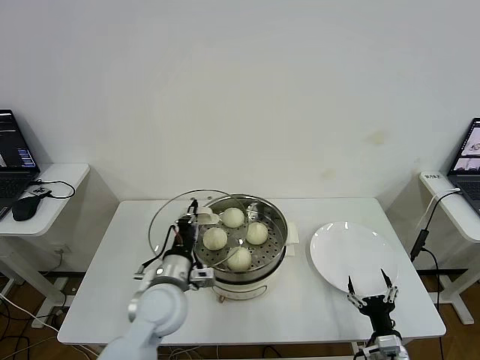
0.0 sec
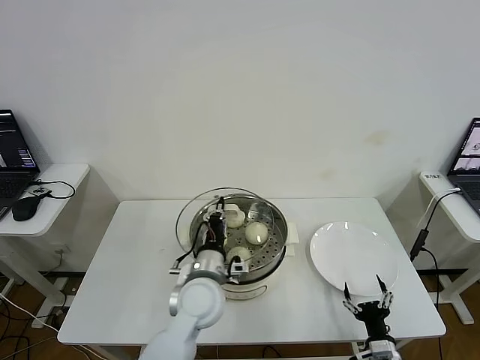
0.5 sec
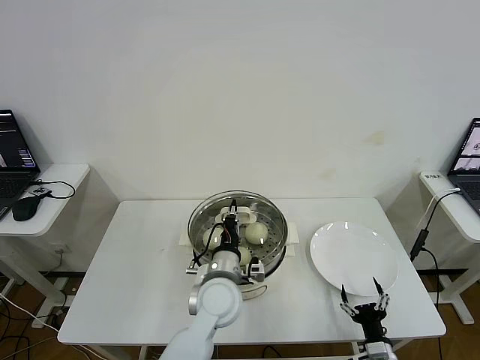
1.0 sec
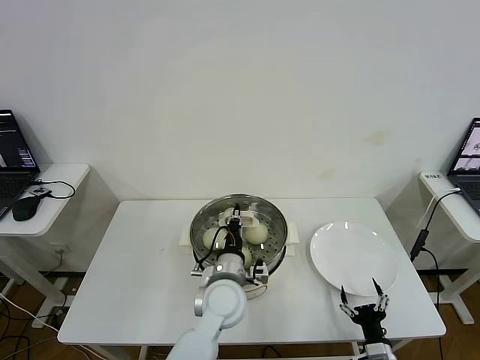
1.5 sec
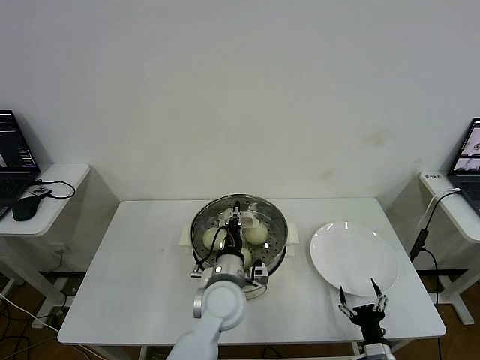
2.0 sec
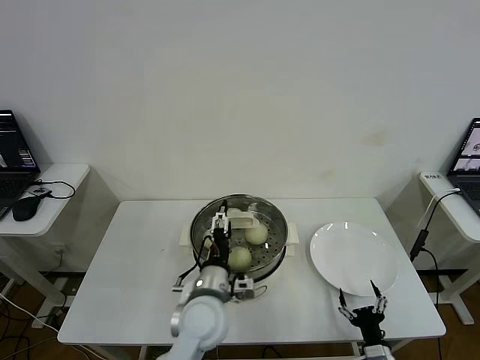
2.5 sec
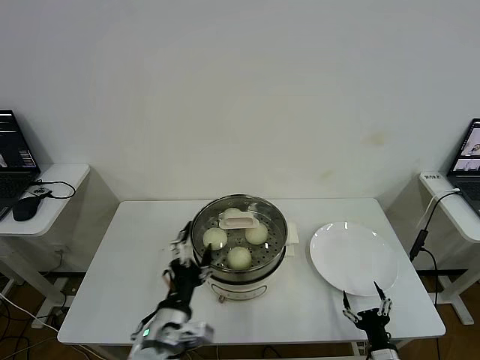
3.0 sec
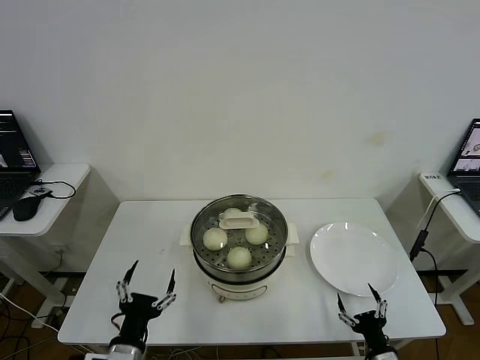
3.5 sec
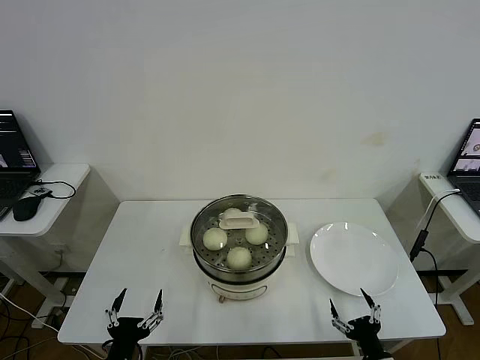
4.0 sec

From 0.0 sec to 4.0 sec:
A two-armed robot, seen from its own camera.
Step, from 0.0 sec to 2.0 sec: Place the pot lid on the steamer with left gripper.
From 0.0 sec to 2.0 sec: The left gripper is displaced to the right by roughly 15 cm.
From 2.0 sec to 4.0 sec: The left gripper goes roughly 30 cm to the left and backward, and opens its fingers.

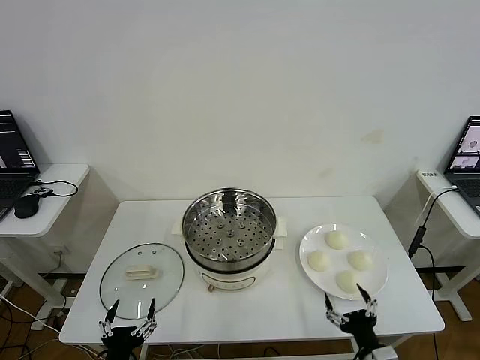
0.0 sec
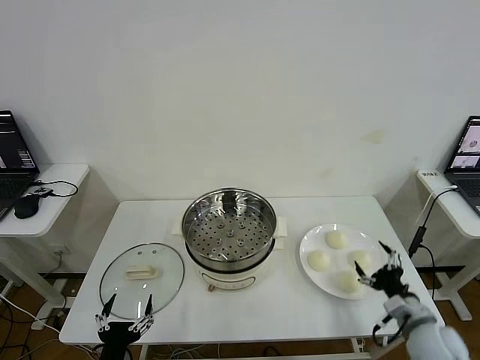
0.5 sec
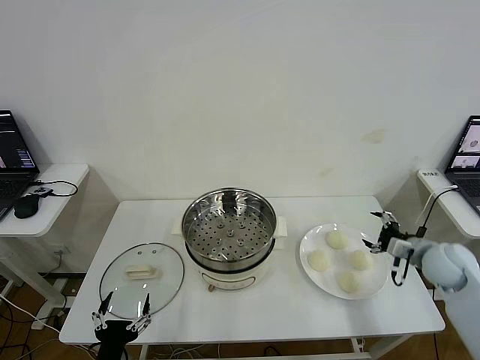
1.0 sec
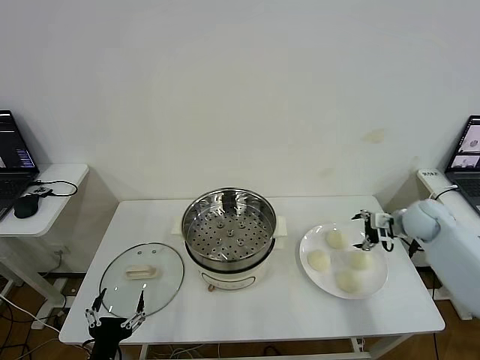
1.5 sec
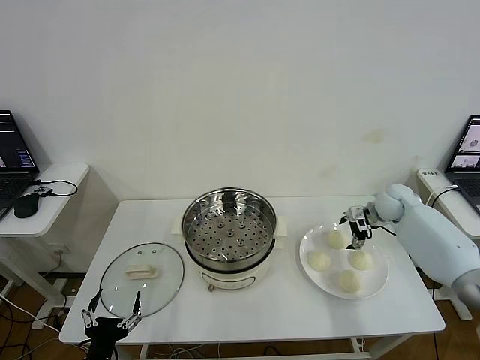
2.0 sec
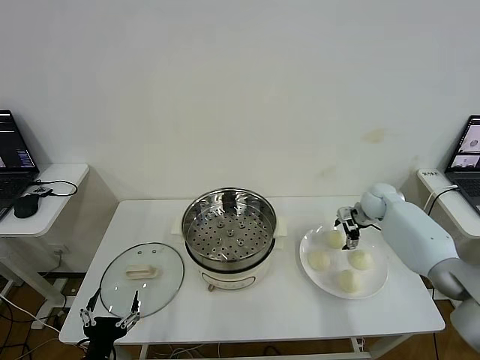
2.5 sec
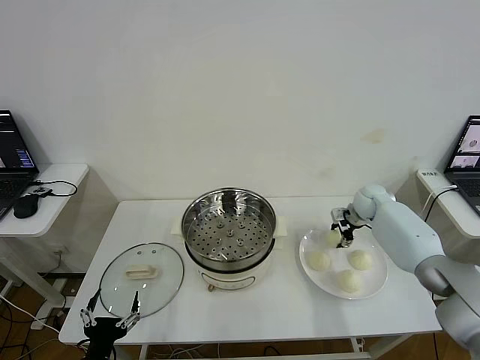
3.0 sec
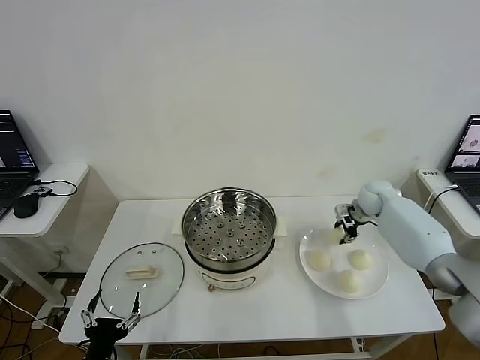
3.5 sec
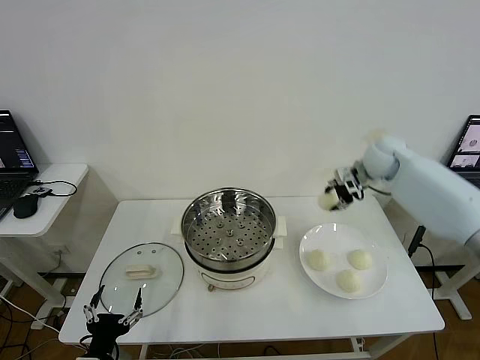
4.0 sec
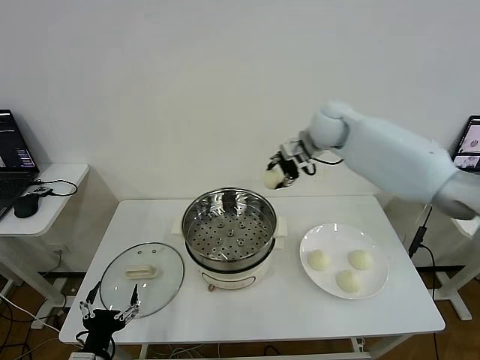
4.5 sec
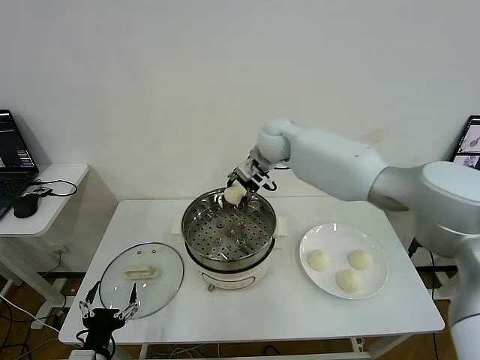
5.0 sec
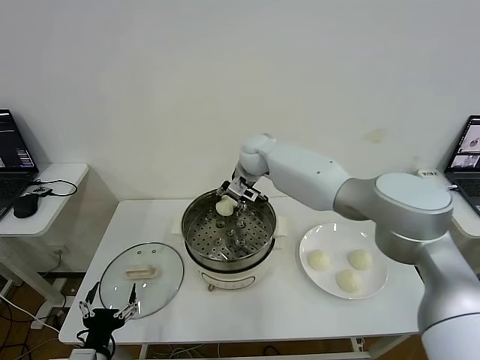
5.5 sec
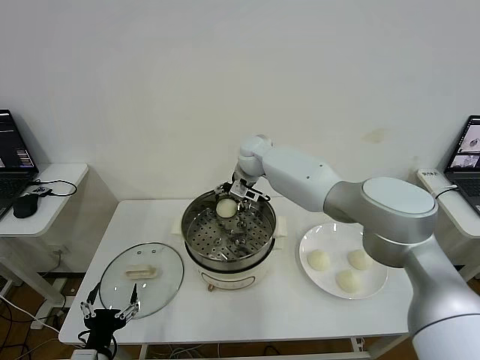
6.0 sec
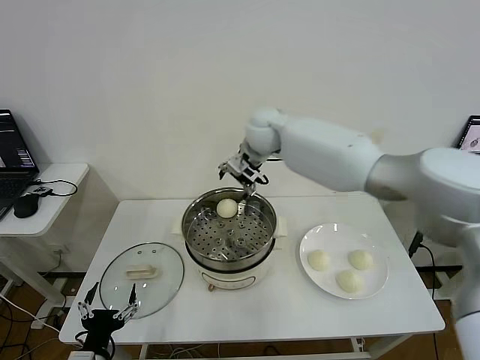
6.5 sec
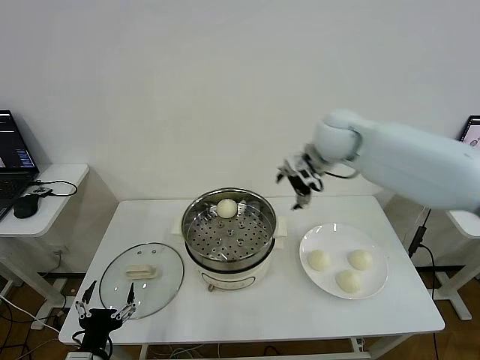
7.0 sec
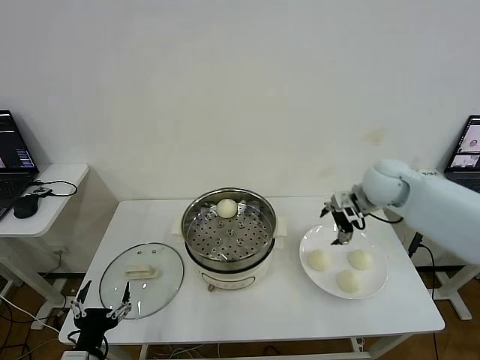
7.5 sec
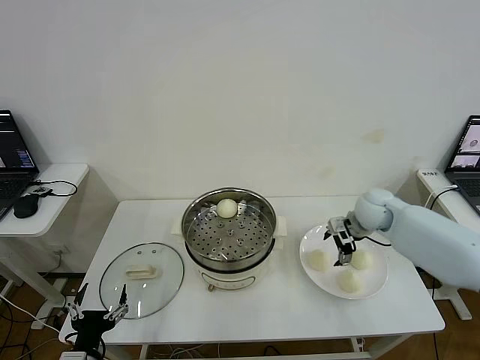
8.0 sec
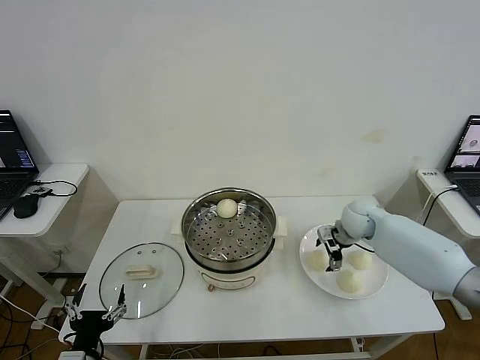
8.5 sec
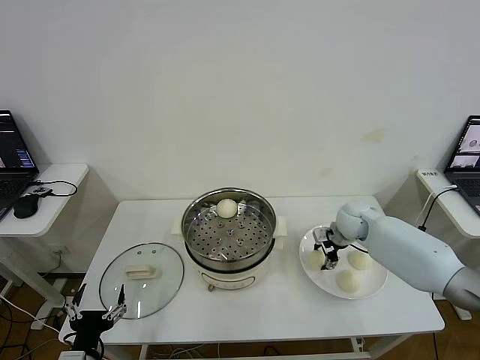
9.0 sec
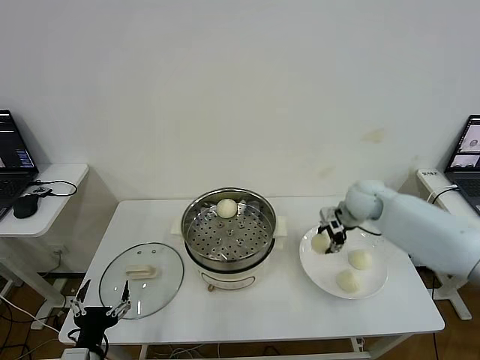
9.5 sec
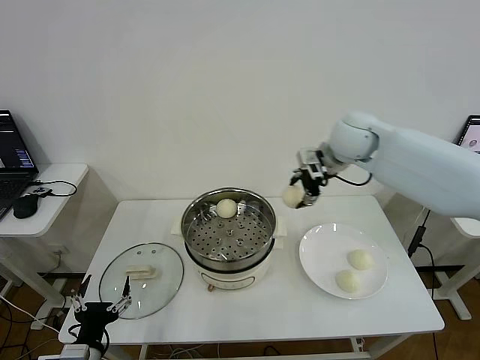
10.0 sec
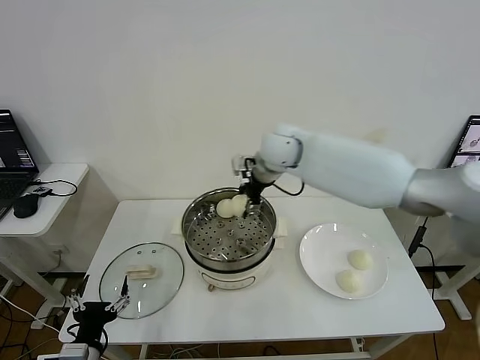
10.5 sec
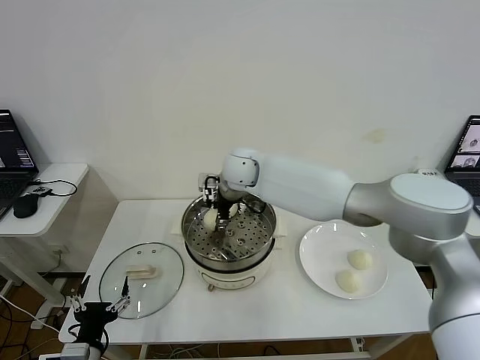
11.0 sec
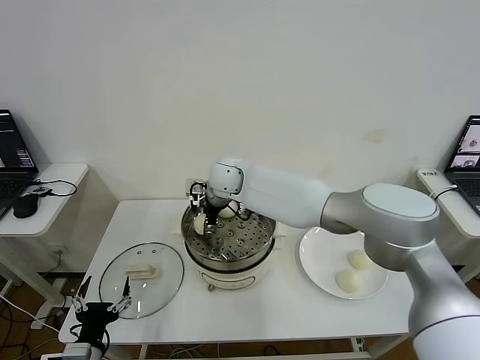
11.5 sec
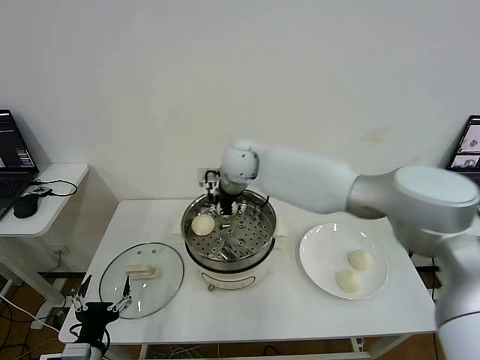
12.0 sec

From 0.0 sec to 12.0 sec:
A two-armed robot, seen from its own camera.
Step, from 0.0 sec to 3.0 sec: Grasp the baozi in the plate with right gripper.
Step, from 3.5 sec to 6.0 sec: Place the baozi on the steamer with right gripper.
Step, from 6.5 sec to 8.5 sec: Grasp the baozi in the plate with right gripper.
Step, from 9.5 sec to 11.5 sec: Place the baozi on the steamer with right gripper.
From 2.0 sec to 4.0 sec: The right gripper shifts about 25 cm upward and to the left, and closes.
From 4.0 sec to 6.0 sec: The right gripper moves to the left, some 25 cm, and opens its fingers.
From 6.0 sec to 8.0 sec: The right gripper goes some 30 cm to the right, downward and backward.
From 8.0 sec to 10.0 sec: The right gripper heads upward and to the left, covering approximately 25 cm, and closes.
From 10.0 sec to 12.0 sec: The right gripper shifts roughly 15 cm to the left, and opens.

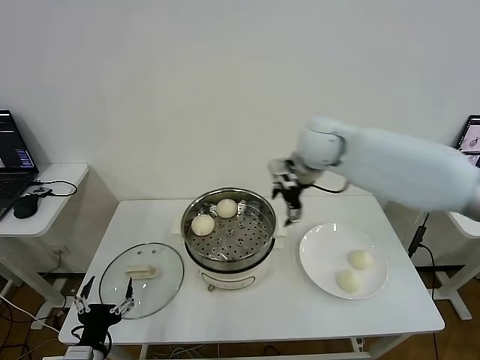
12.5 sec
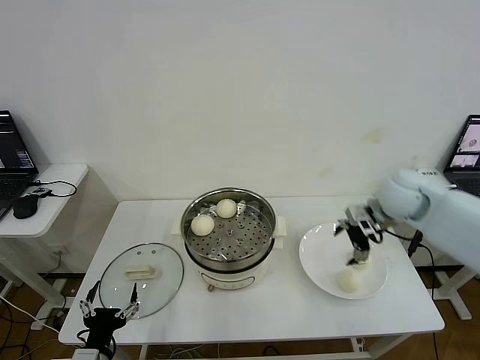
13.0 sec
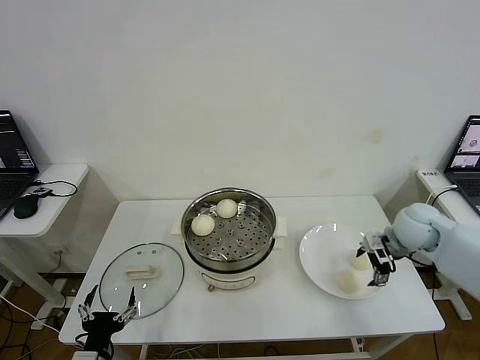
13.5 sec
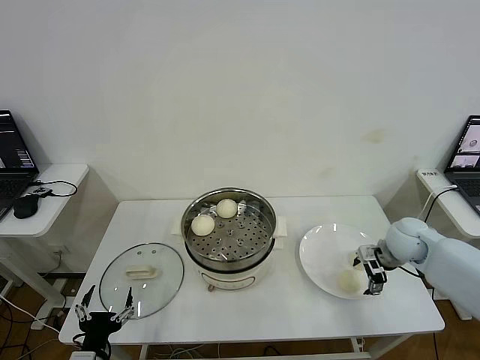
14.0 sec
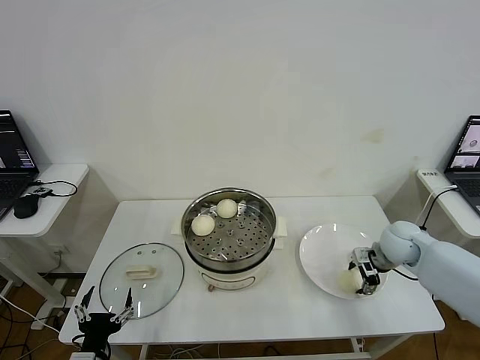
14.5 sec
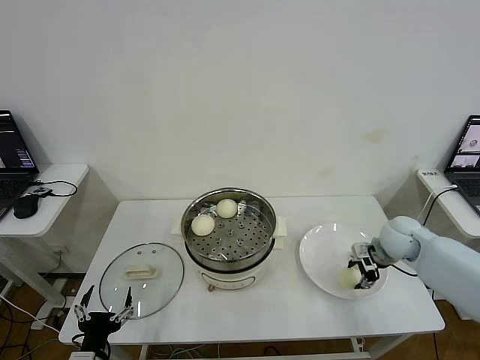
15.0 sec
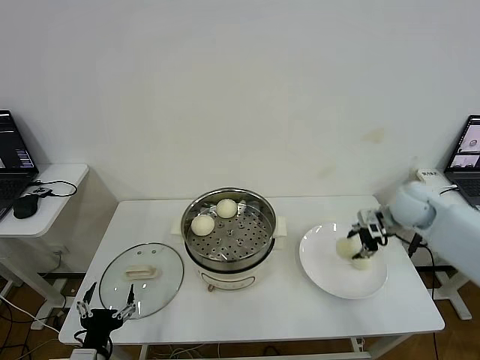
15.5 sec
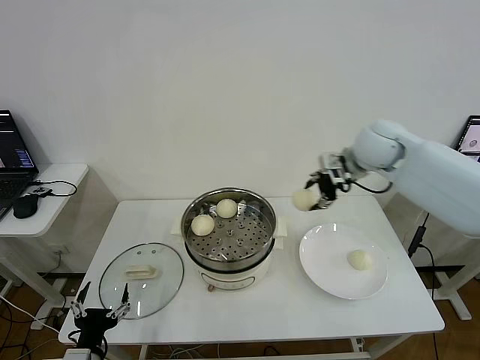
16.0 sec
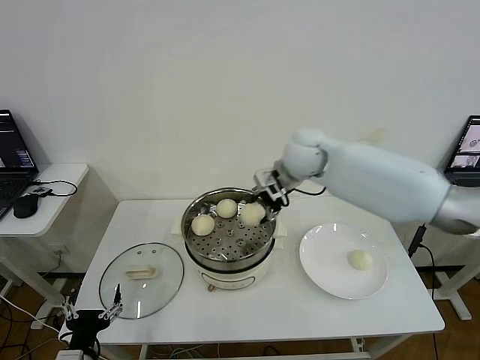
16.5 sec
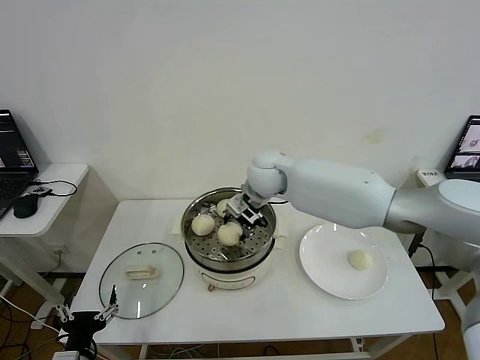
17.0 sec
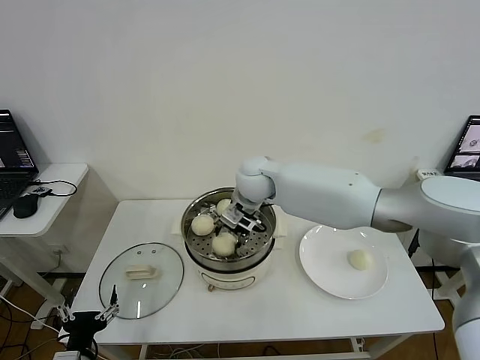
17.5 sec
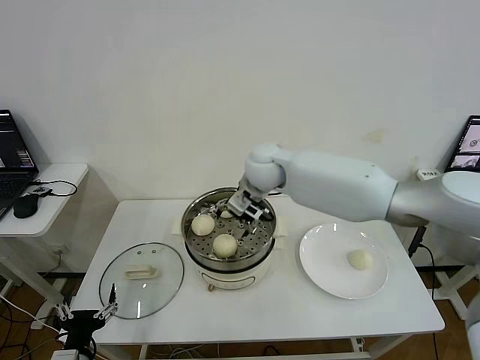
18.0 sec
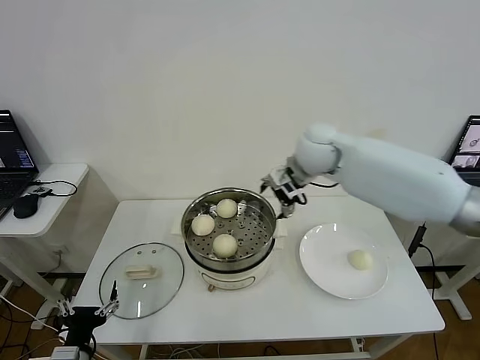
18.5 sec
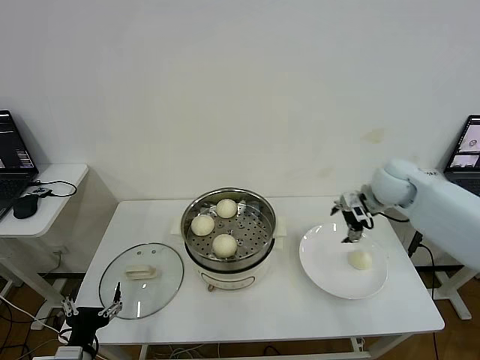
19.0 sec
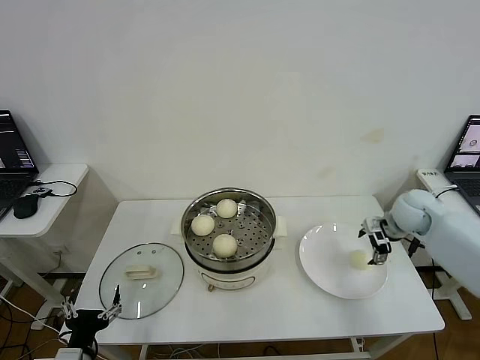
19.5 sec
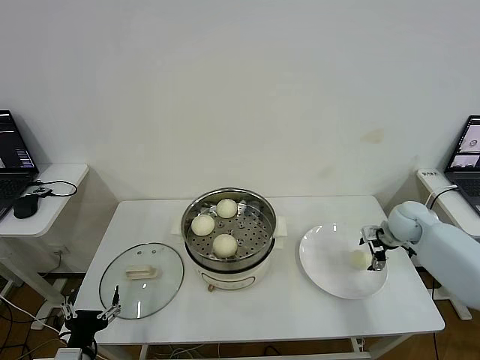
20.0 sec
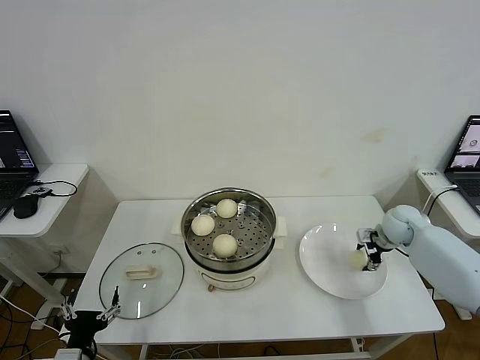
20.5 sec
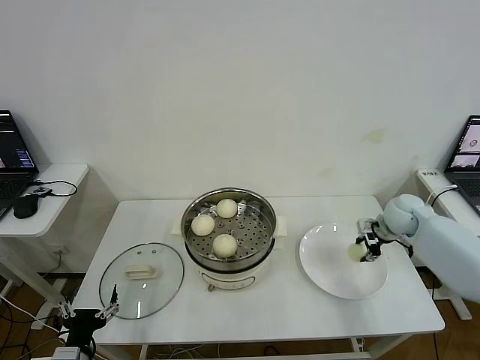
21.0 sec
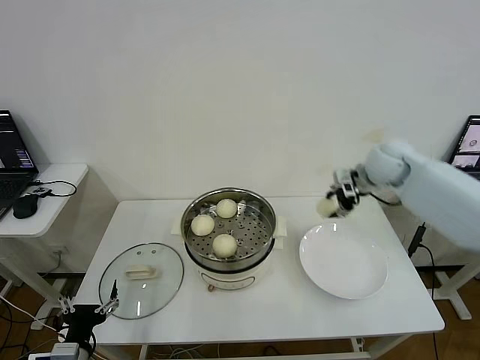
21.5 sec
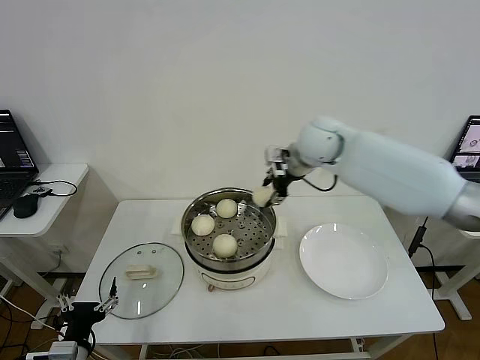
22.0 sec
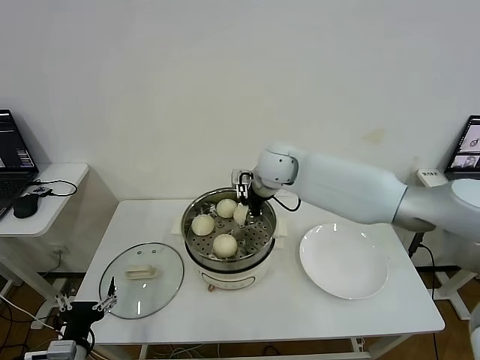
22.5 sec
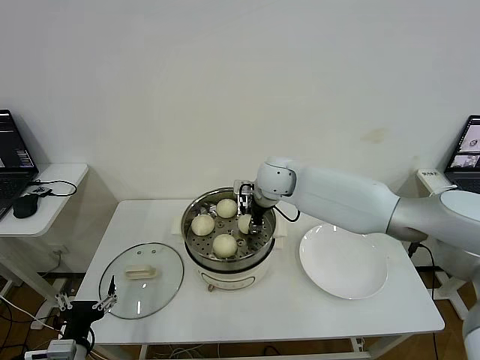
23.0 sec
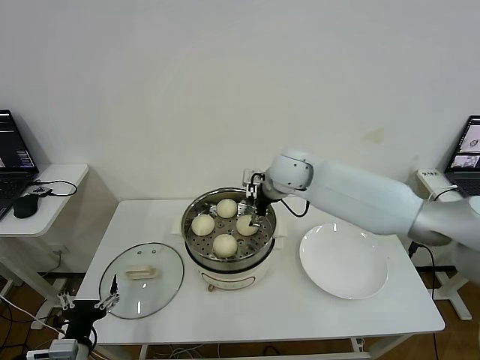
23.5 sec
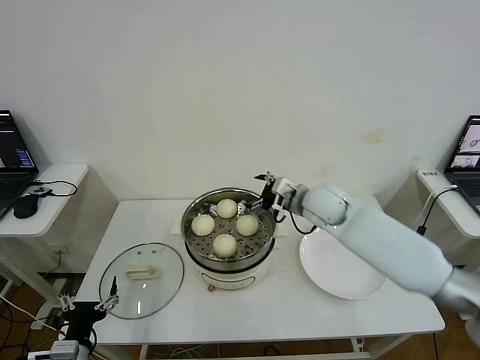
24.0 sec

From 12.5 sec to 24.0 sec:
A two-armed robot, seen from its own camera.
Step, from 12.5 sec to 14.5 sec: Grasp the baozi in the plate with right gripper.
Step, from 15.0 sec to 17.5 sec: Place the baozi on the steamer with right gripper.
Step, from 18.0 sec to 20.5 sec: Grasp the baozi in the plate with right gripper.
Step, from 21.0 sec to 23.0 sec: Place the baozi on the steamer with right gripper.
From 12.5 sec to 14.5 sec: The right gripper is displaced downward and to the right by approximately 25 cm, and closes.
From 14.5 sec to 16.5 sec: The right gripper shifts approximately 30 cm to the left and upward.
From 16.5 sec to 18.5 sec: The right gripper travels to the right by approximately 10 cm, and opens its fingers.
From 18.5 sec to 20.0 sec: The right gripper is displaced to the right and downward by some 30 cm.
From 20.0 sec to 22.0 sec: The right gripper heads to the left and upward, covering about 35 cm, and closes.
From 22.0 sec to 24.0 sec: The right gripper moves downward and backward, some 15 cm, and opens its fingers.
